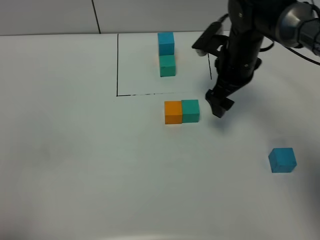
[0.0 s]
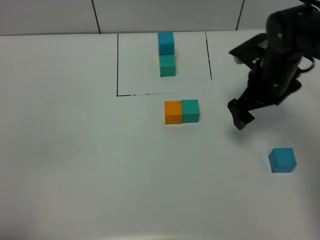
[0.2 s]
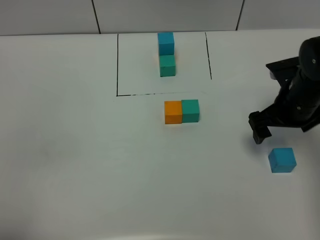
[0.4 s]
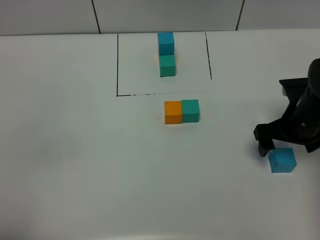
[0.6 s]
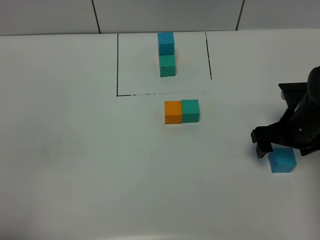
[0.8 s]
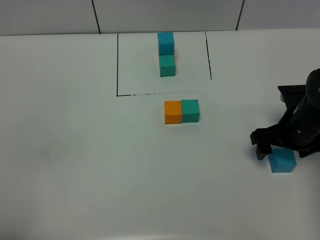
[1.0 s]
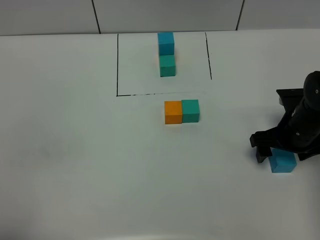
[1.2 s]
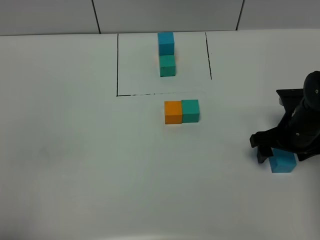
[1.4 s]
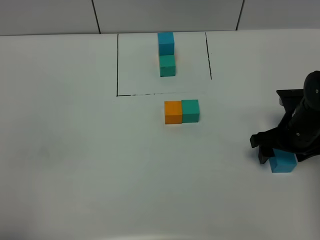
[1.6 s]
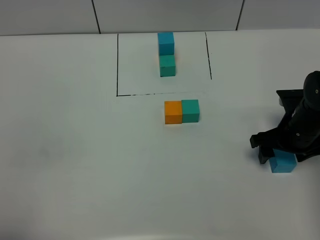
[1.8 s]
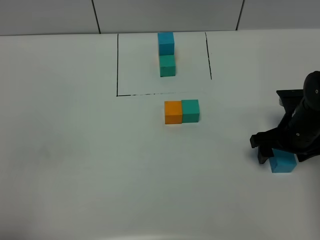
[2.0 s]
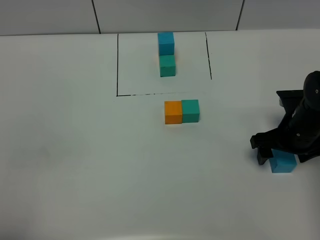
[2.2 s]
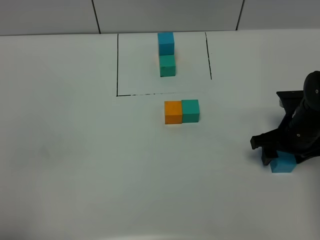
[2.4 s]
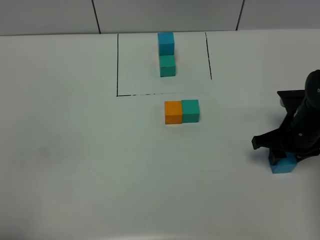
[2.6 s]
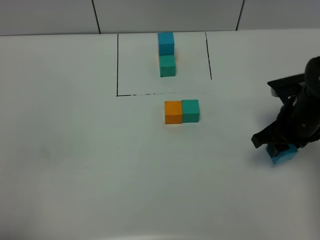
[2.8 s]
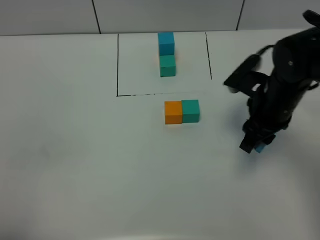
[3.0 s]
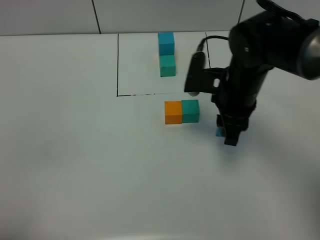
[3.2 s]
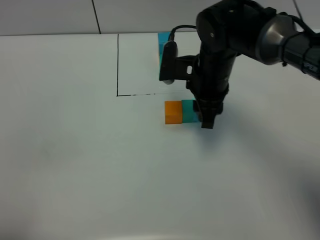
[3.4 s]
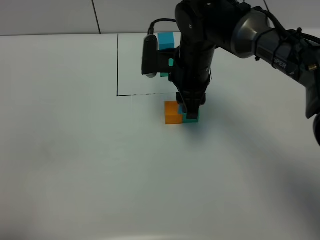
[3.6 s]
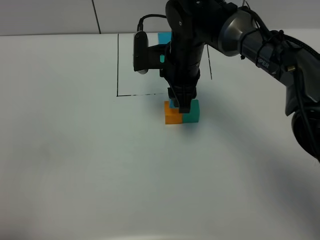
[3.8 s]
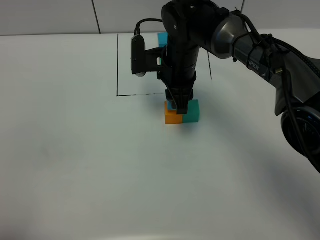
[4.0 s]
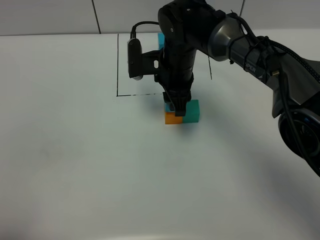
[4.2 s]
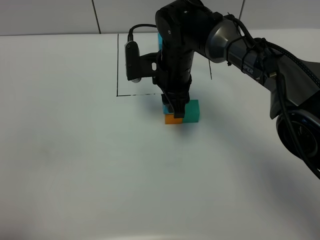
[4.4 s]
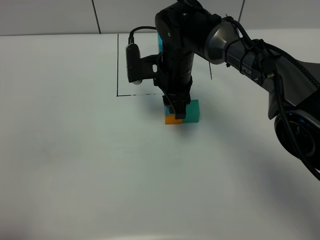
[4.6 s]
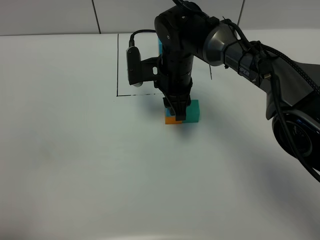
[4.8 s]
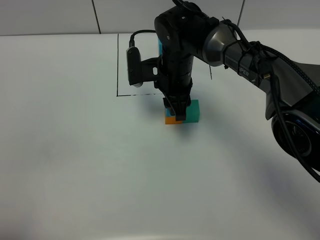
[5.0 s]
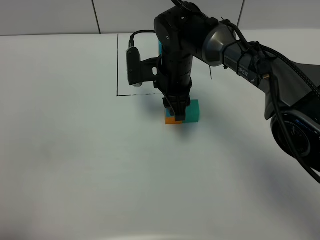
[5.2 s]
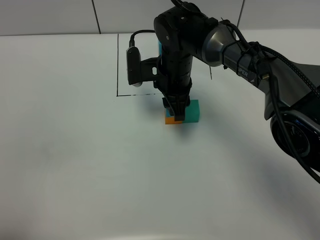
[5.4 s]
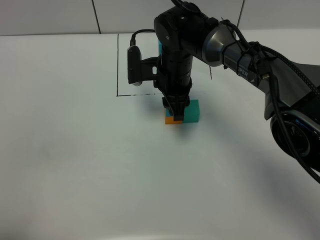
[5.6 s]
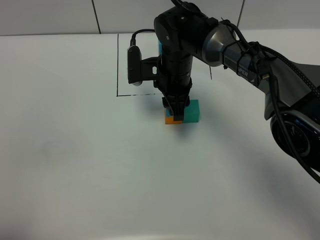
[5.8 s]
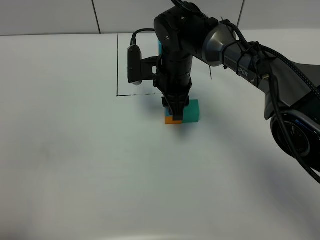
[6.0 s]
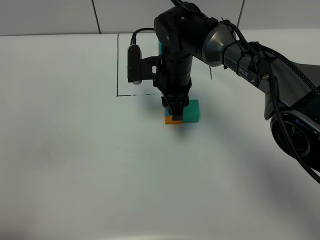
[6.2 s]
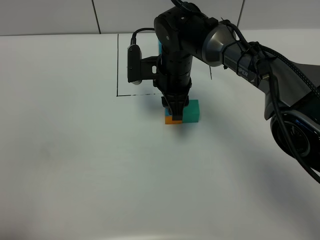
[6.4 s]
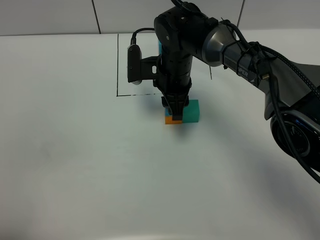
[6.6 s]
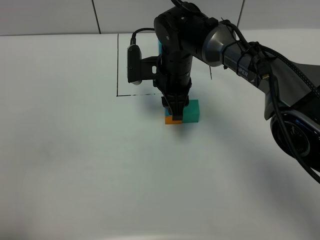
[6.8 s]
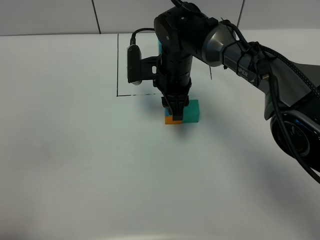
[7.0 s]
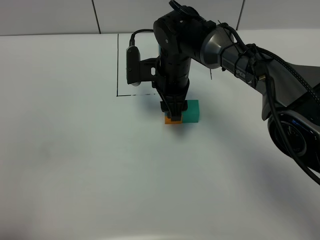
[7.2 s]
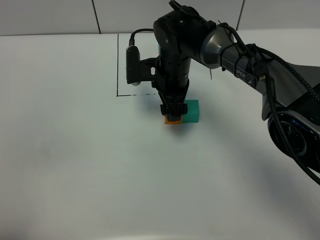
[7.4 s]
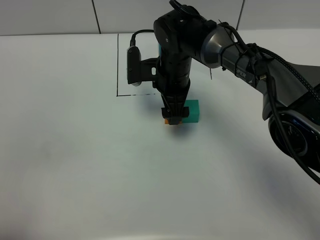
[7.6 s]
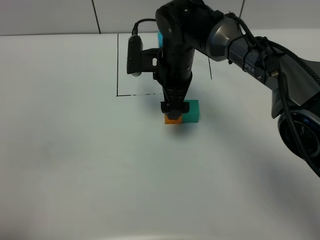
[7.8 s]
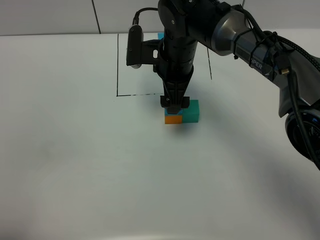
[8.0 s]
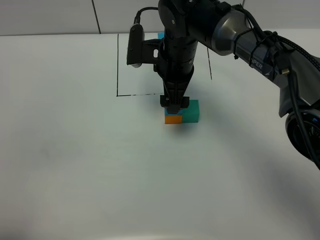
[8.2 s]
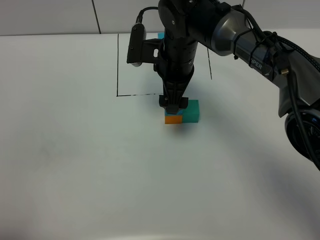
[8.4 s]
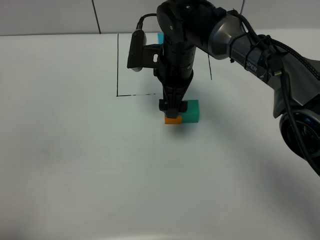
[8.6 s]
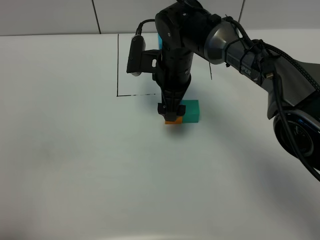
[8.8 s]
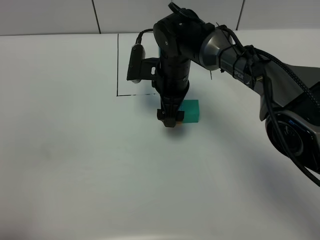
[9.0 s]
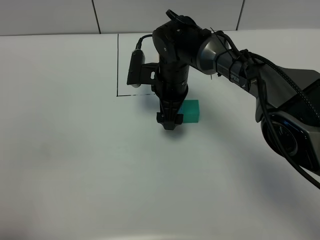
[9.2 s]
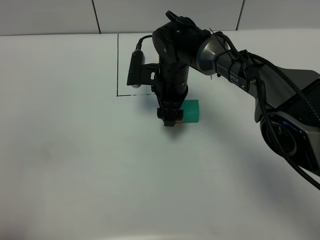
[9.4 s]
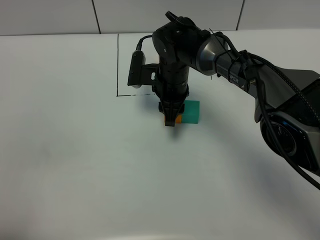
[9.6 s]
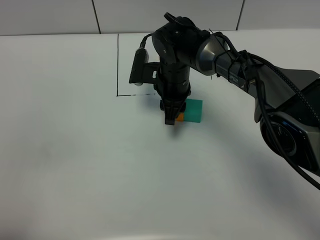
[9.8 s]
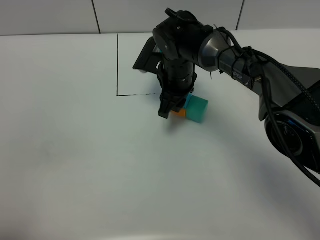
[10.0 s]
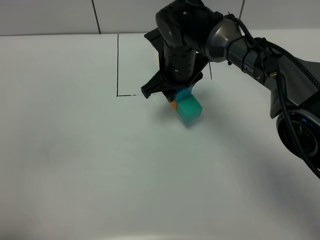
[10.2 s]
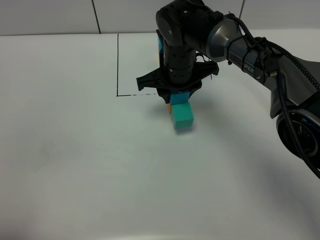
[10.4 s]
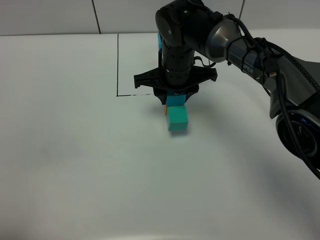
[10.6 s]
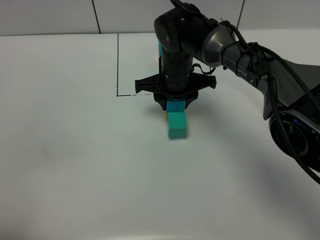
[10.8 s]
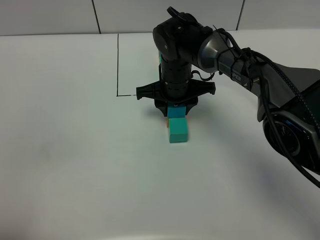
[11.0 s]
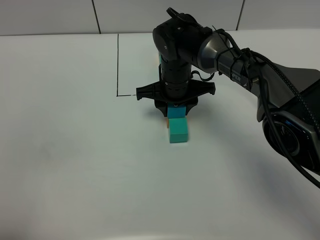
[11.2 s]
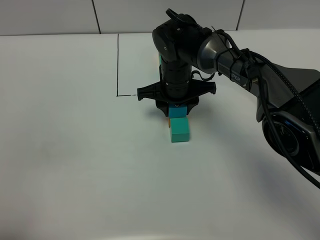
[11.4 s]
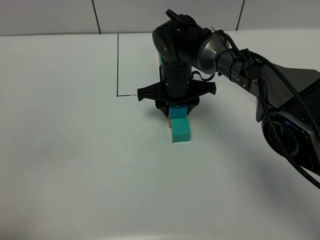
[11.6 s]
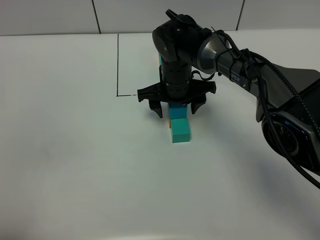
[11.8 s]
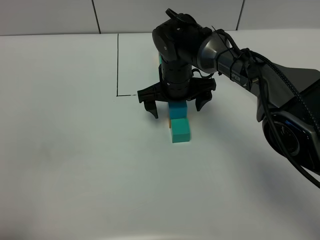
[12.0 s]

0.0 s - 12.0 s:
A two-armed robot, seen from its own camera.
Task of the whole recording: According to the building block template in front, assemble the scattered blocks together.
Step, 0.0 s - 7.8 s: Put the orange build block on the orange build block.
Step, 8.0 s - 11.8 s: move the build block to the center of the table.
0.0 s - 1.6 s: The right gripper moves to the right, backward and downward, about 15 cm, and closes up.
1.6 s - 3.0 s: The right gripper travels upward and to the left by about 10 cm, and closes up.
3.0 s - 4.4 s: The right gripper moves to the left and forward, roughly 20 cm.
4.4 s - 6.0 s: The grippers stay close to where they were, moving slightly.
6.0 s - 7.6 s: The right gripper opens its fingers.
7.6 s - 9.0 s: The grippers make only small movements.
9.0 s - 10.4 s: The right gripper closes up.
10.4 s - 12.0 s: The right gripper opens its fingers.

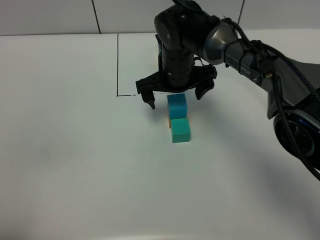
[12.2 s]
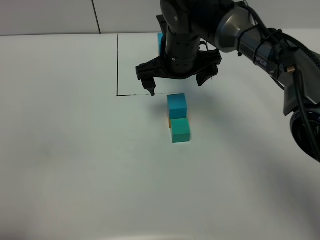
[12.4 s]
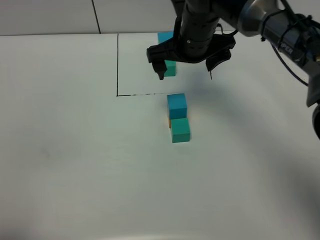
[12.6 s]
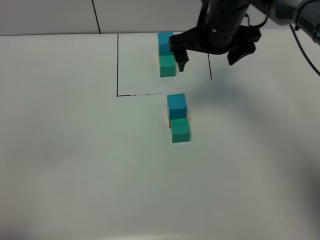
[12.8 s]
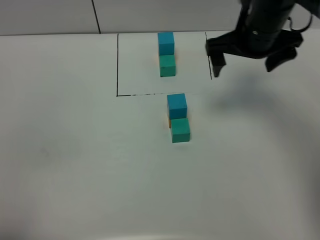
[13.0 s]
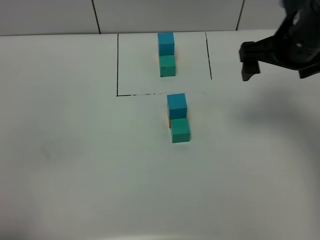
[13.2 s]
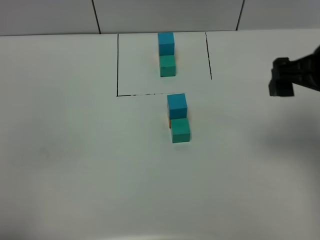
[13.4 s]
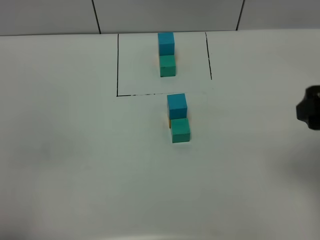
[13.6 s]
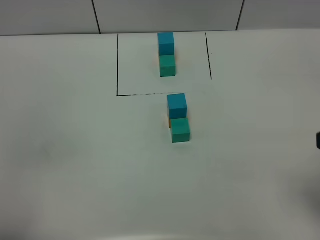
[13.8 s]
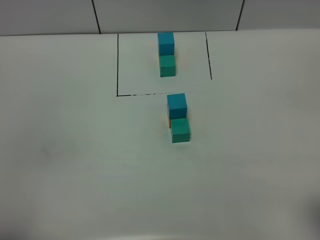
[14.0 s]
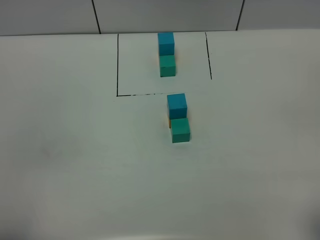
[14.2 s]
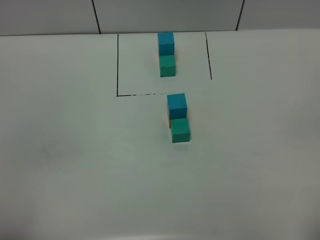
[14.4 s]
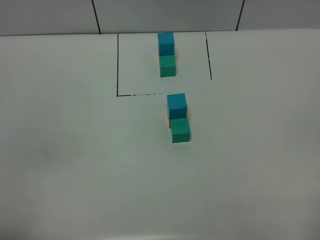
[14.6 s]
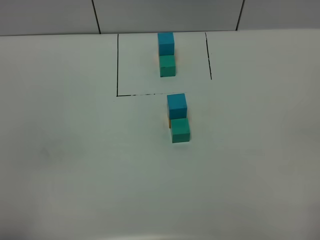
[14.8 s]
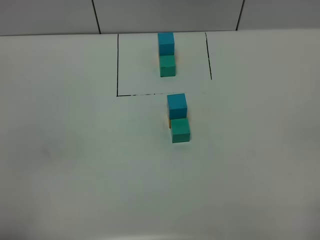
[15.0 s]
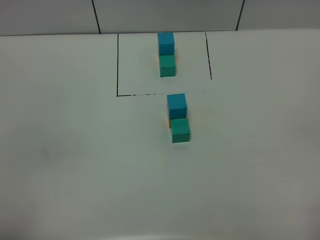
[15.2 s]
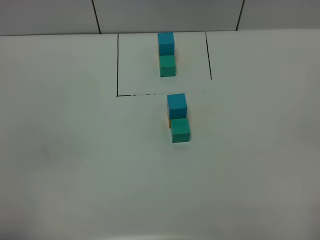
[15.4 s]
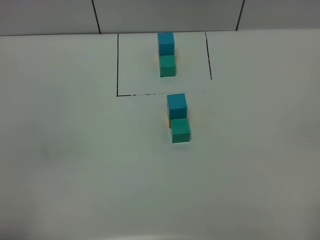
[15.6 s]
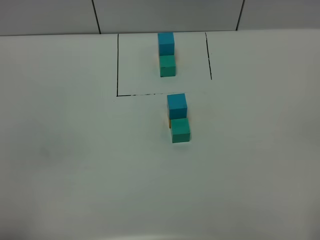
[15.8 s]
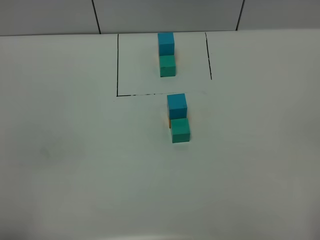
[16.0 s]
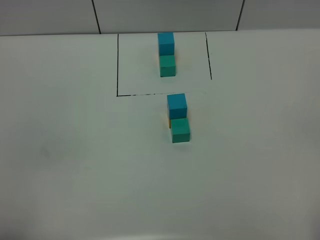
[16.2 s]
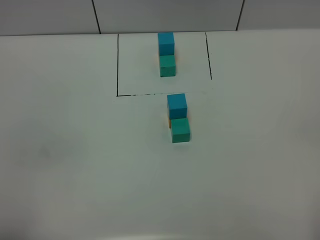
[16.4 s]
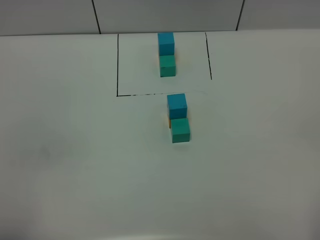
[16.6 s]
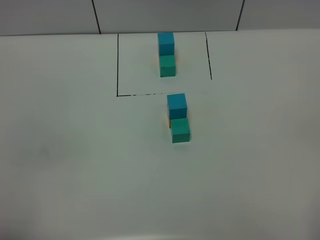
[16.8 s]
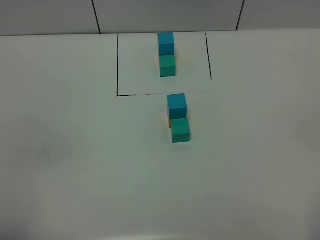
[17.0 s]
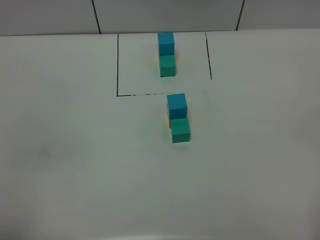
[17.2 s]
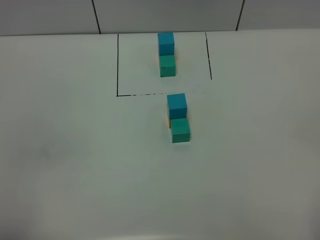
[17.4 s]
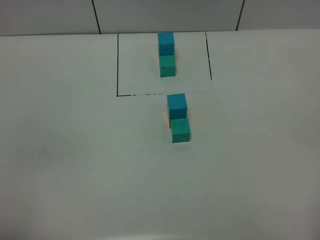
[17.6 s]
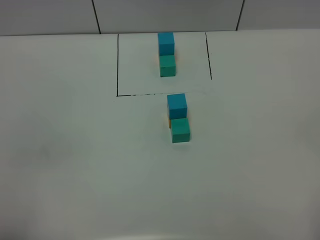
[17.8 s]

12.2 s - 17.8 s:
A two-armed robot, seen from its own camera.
Task of the whole recording: According to the building block template in front, assemble the scattered blocks together.
12.2 s - 13.6 s: The right gripper shifts roughly 35 cm to the right, backward and upward.
13.6 s - 15.0 s: The right gripper goes roughly 20 cm backward.
16.4 s - 17.8 s: Neither gripper changes place.
